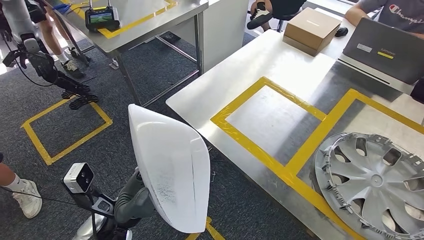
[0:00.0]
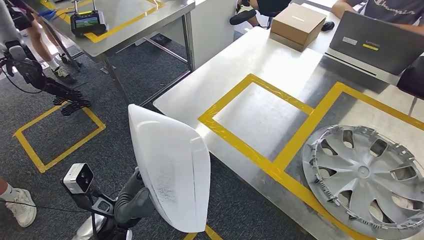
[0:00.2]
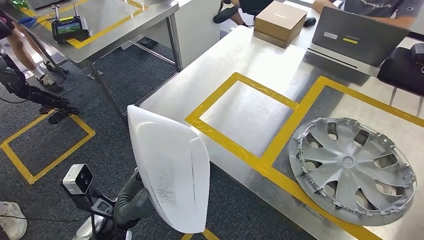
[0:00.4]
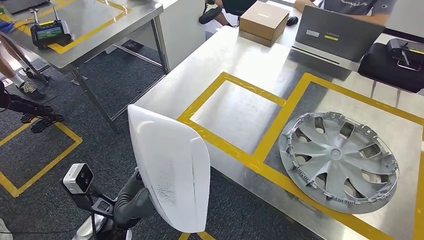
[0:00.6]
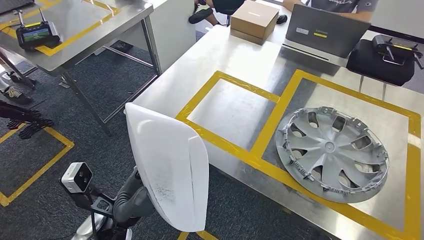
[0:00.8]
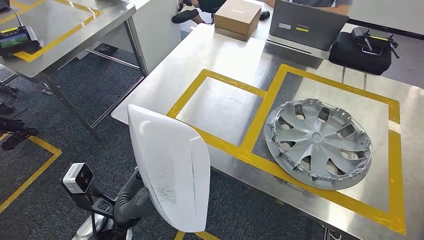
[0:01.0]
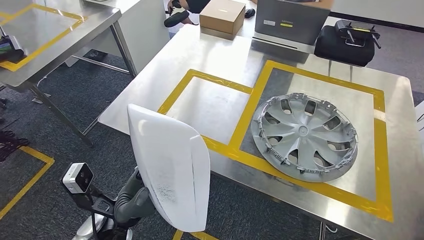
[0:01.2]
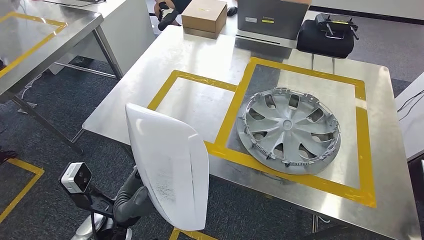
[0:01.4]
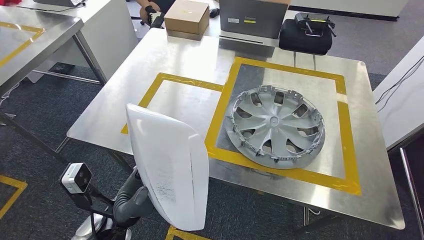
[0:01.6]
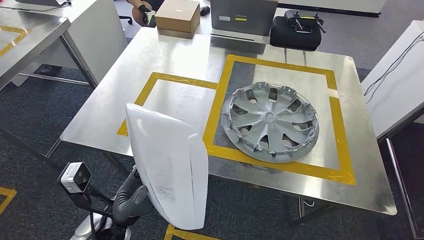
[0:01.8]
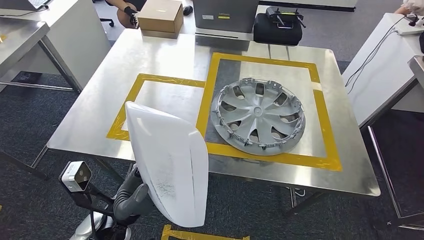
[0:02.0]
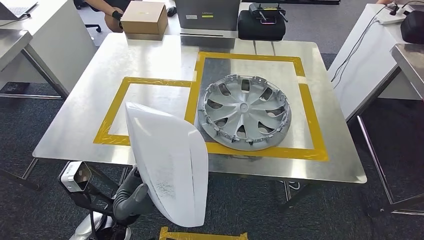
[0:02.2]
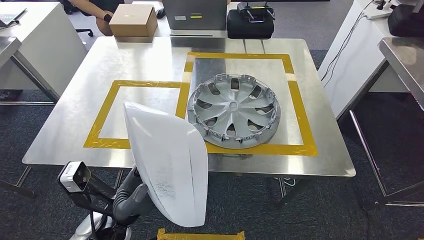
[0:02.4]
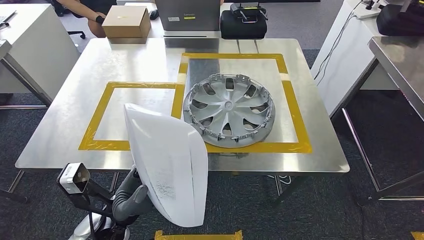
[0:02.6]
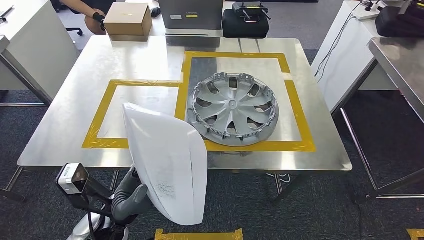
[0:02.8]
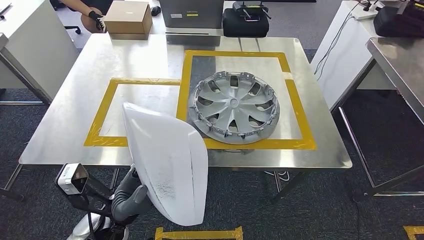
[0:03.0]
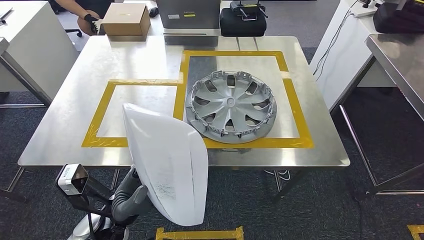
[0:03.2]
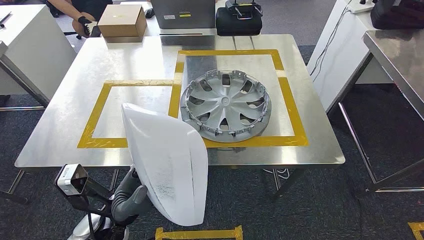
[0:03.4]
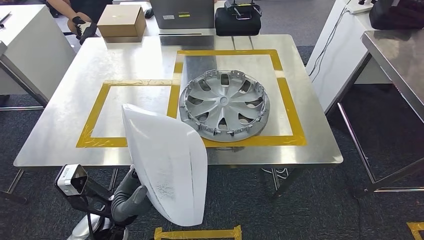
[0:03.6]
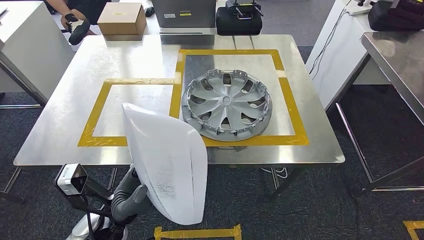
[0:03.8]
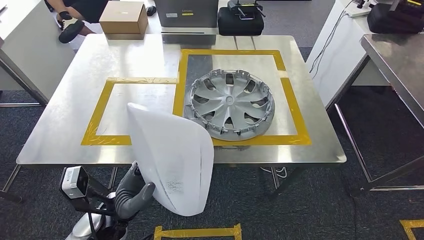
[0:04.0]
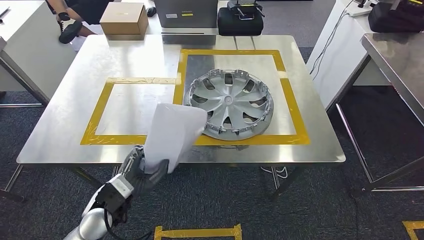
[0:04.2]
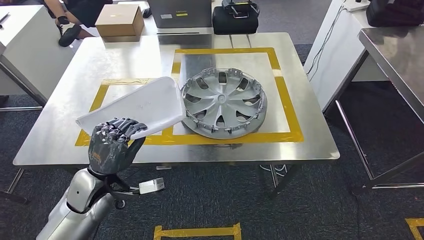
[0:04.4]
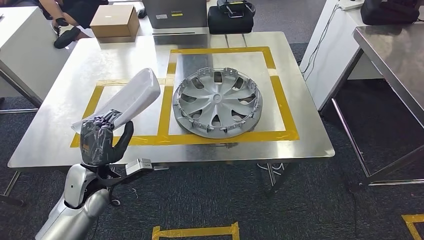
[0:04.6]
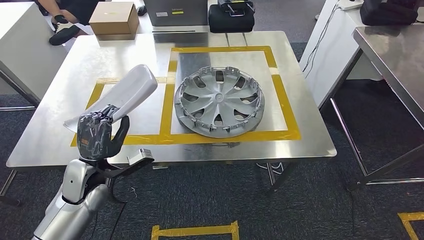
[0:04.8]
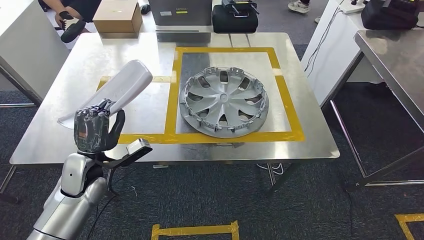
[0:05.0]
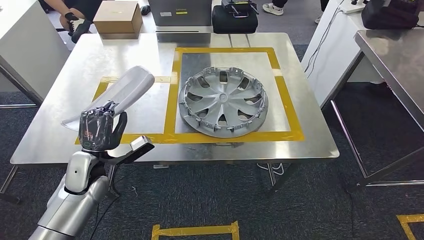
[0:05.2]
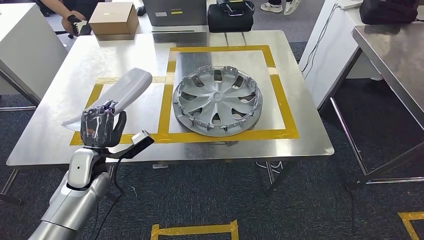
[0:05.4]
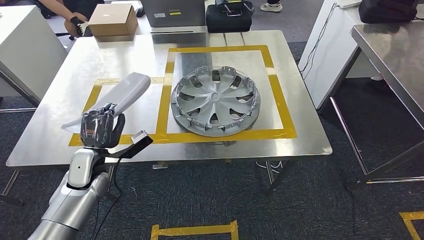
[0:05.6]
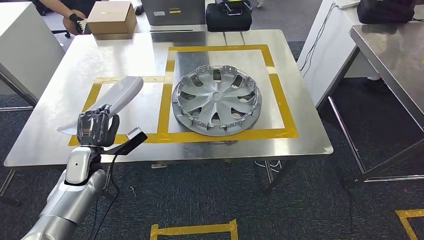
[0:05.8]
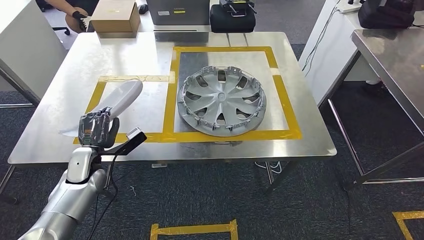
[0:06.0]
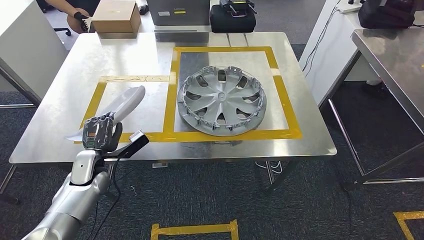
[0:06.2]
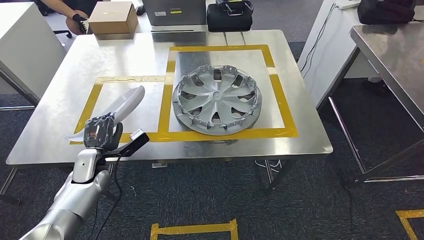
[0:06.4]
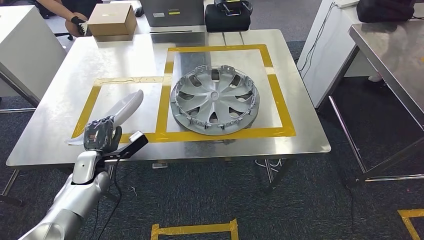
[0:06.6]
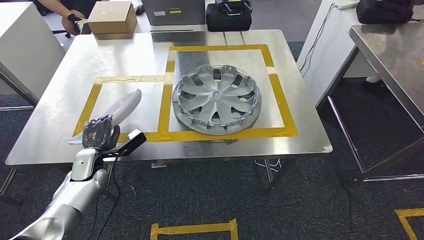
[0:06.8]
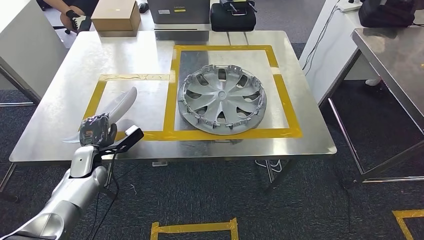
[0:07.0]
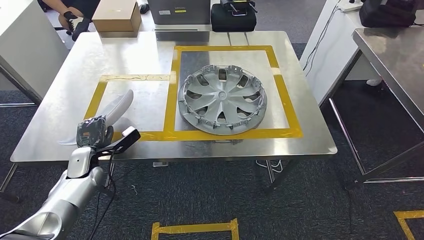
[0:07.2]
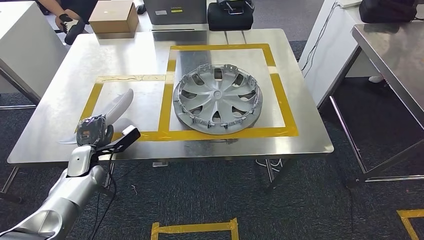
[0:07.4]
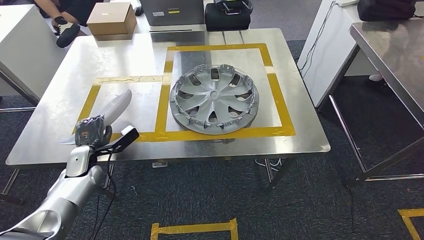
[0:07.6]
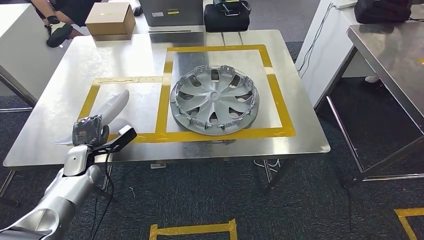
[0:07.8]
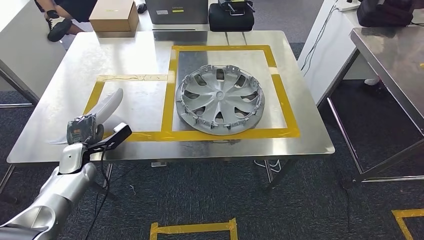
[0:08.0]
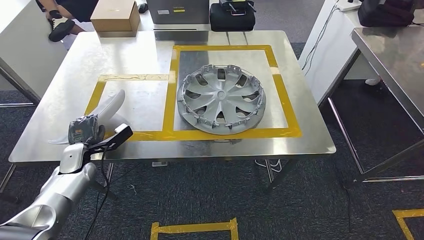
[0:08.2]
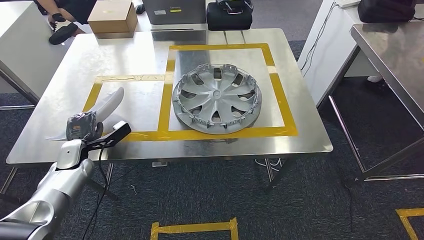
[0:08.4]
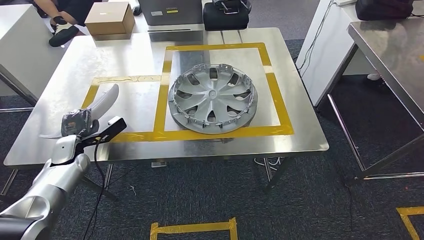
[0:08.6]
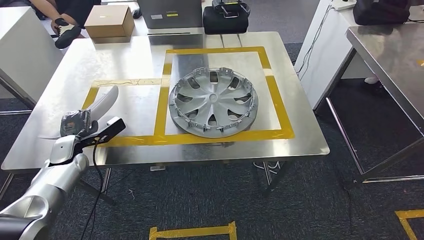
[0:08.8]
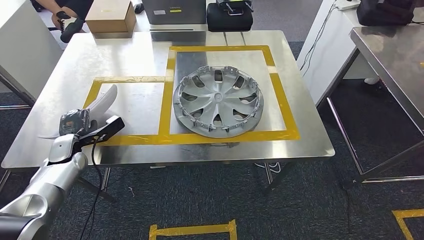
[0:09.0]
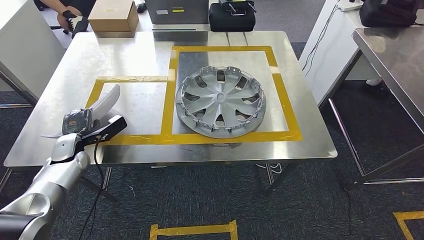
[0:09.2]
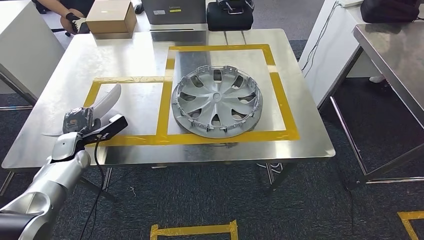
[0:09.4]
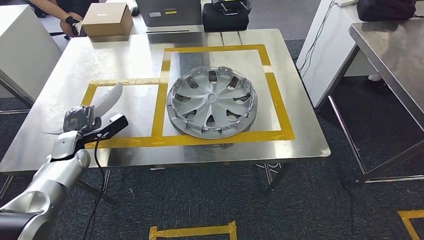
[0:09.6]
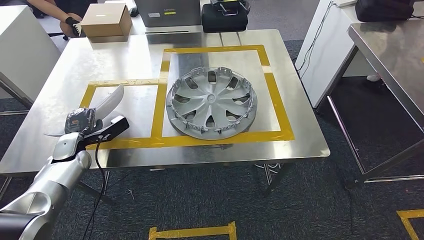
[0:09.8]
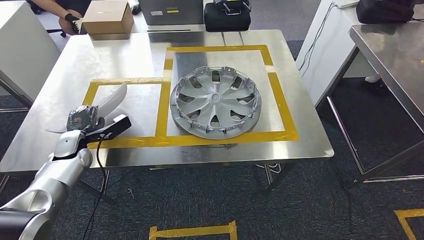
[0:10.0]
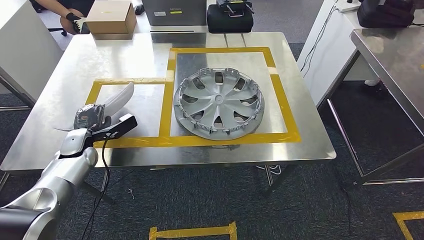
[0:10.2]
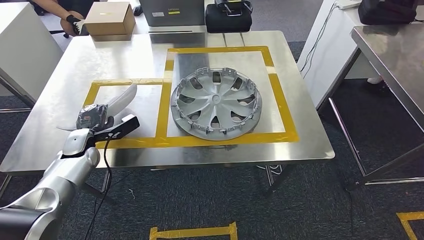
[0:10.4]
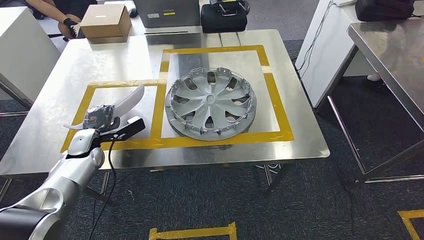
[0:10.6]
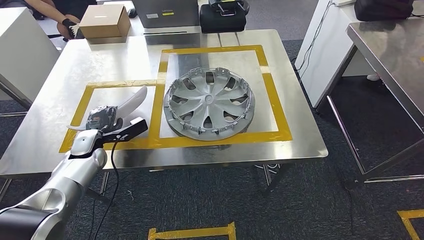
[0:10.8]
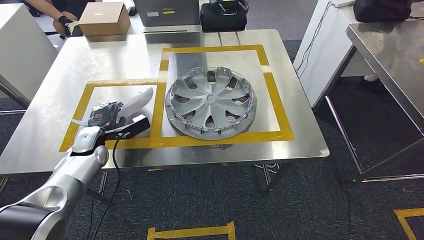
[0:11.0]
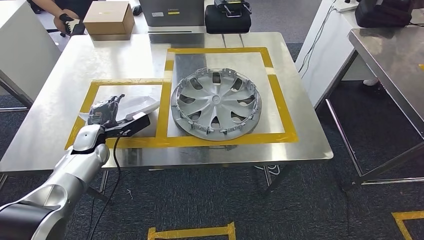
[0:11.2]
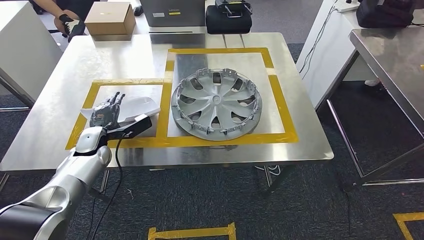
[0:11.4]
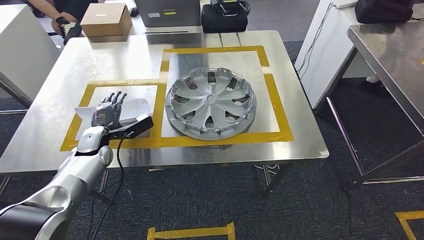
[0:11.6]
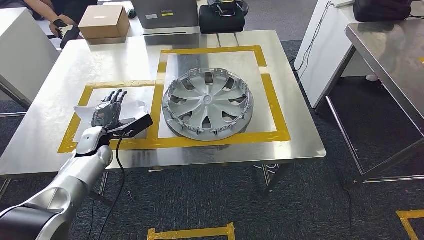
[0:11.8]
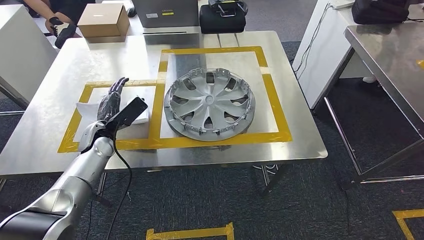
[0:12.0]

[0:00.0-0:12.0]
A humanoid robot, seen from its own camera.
0:09.0 to 0:10.4: The hands stay close to where they were, moving slightly.

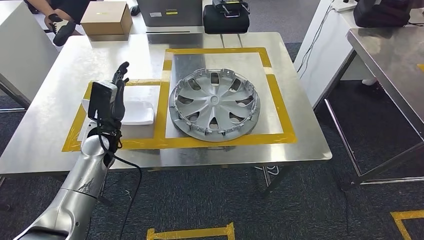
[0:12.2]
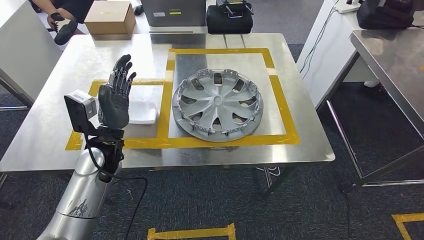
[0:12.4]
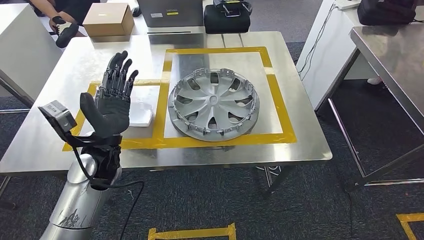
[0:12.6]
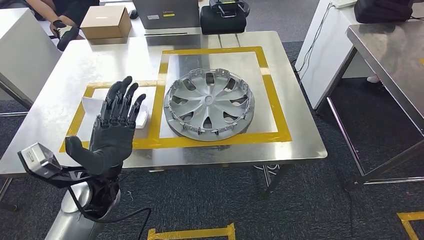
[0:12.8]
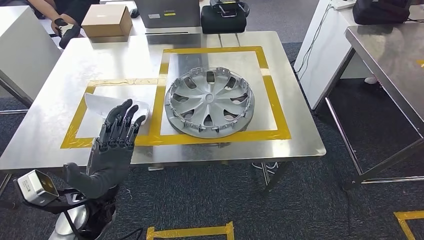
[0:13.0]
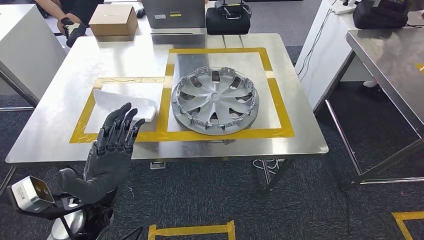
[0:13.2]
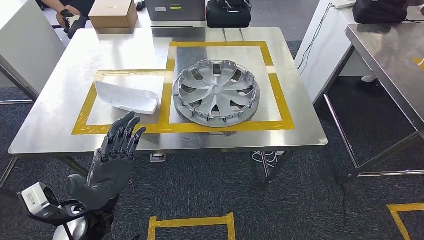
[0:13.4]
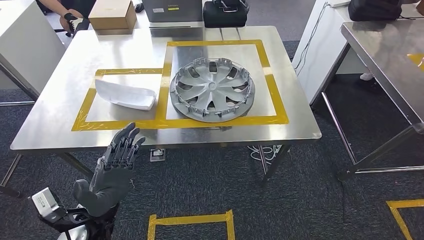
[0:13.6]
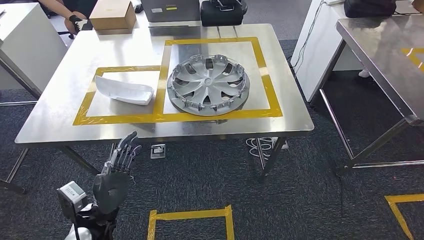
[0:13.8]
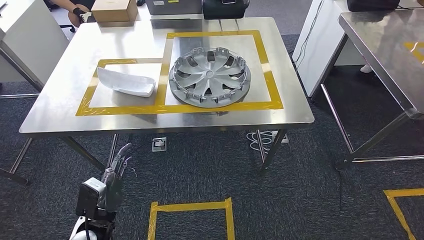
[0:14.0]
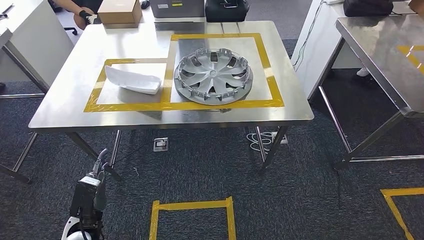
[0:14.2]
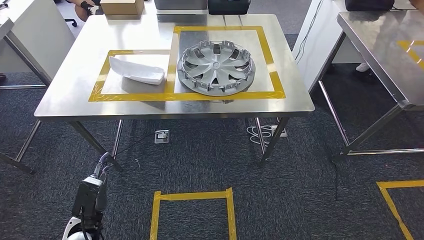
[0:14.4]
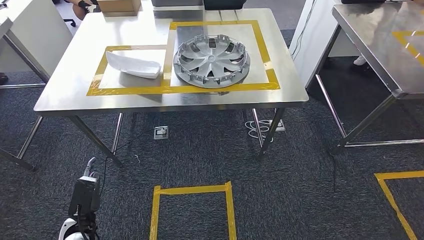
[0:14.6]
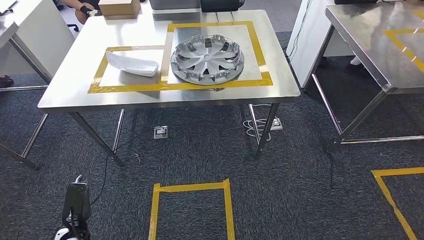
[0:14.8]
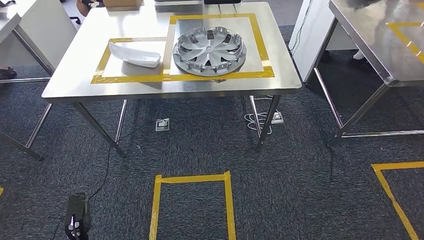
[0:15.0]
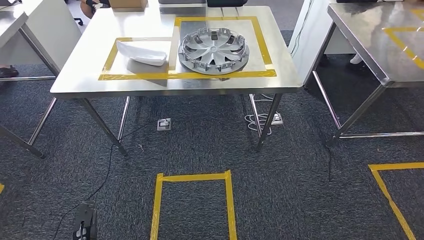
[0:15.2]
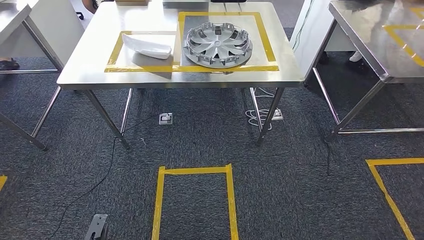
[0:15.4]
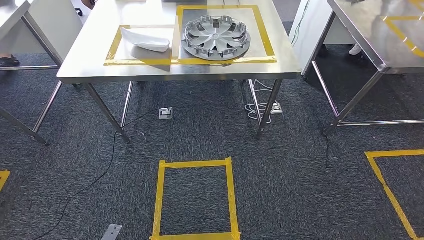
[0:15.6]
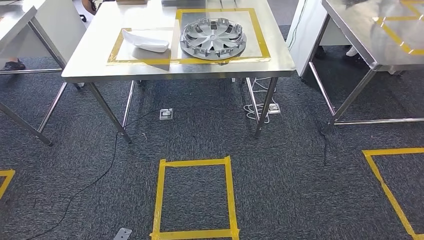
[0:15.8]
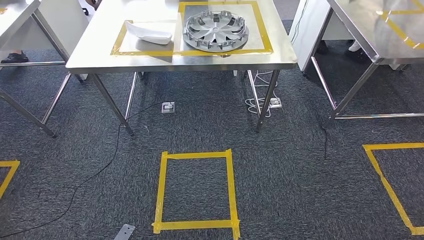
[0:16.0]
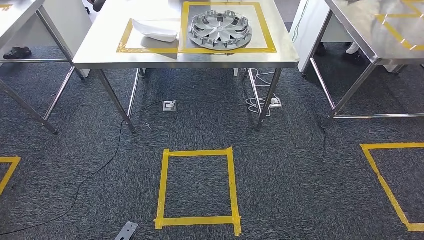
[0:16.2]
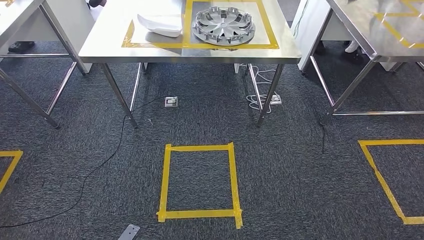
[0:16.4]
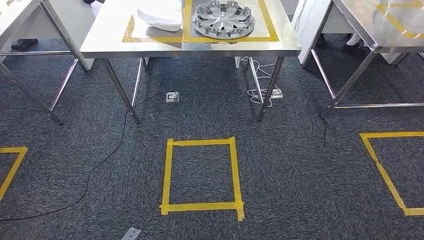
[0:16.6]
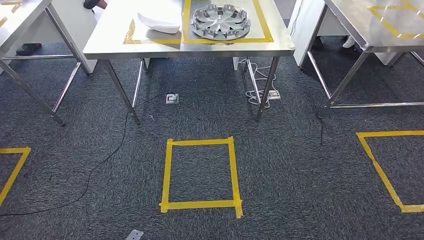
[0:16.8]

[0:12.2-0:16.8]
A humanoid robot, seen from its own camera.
Step, 0:12.6 to 0:16.6: Move to the initial position of the workbench.
